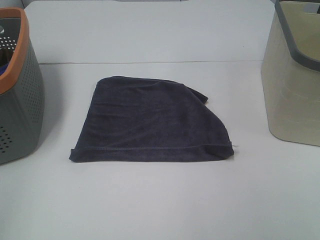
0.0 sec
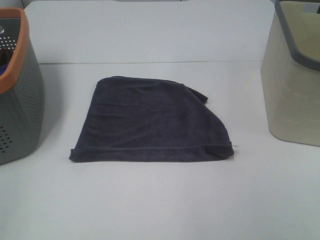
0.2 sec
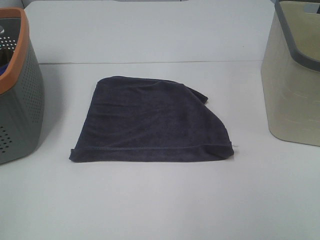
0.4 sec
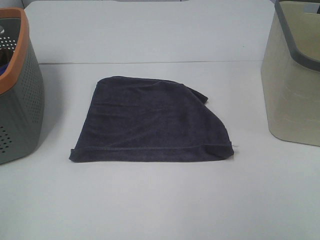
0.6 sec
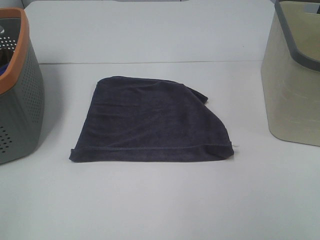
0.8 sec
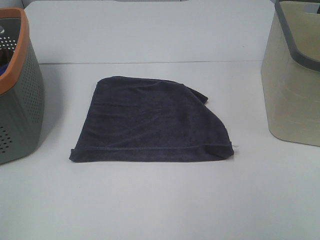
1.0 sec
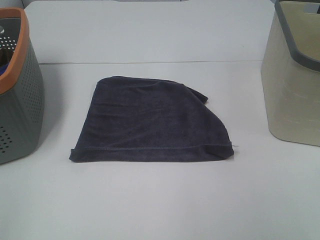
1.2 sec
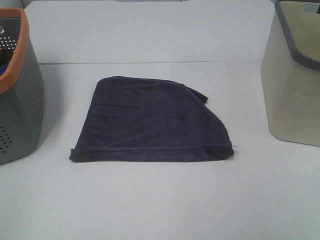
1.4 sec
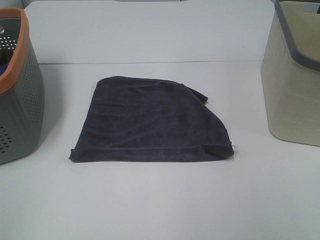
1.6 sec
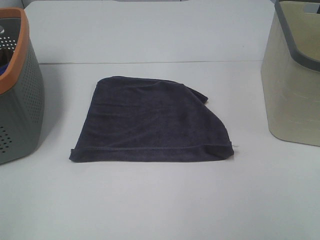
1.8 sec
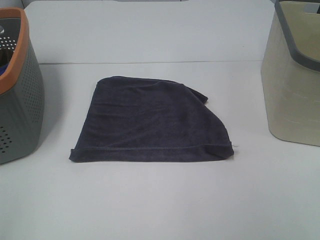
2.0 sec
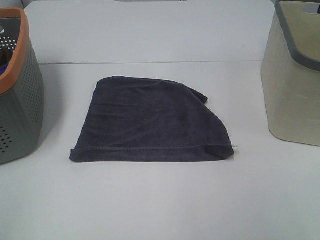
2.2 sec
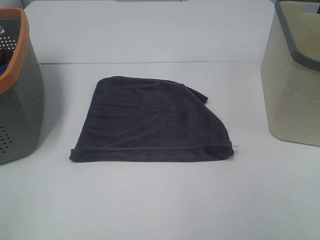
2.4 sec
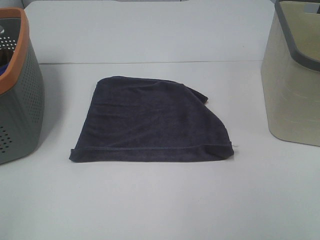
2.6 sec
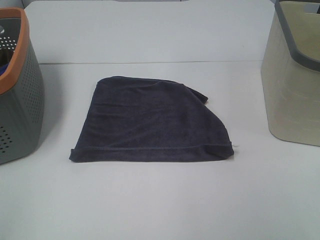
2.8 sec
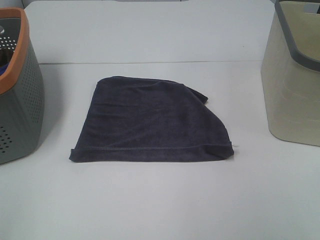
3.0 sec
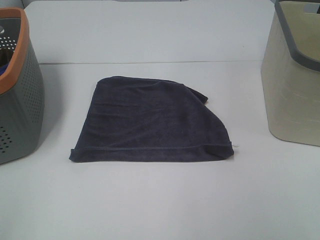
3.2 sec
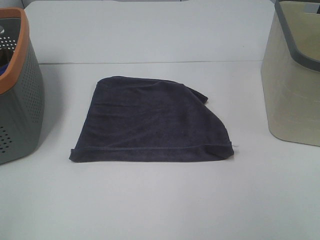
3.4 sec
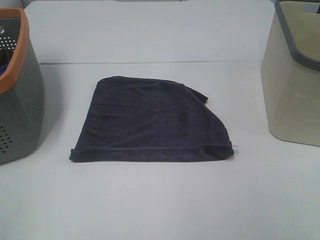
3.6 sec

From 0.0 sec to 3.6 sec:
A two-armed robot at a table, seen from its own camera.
Task of the whole recording: Remove the towel and place it.
From 1.8 sec to 3.6 sec: Neither gripper changes place.
